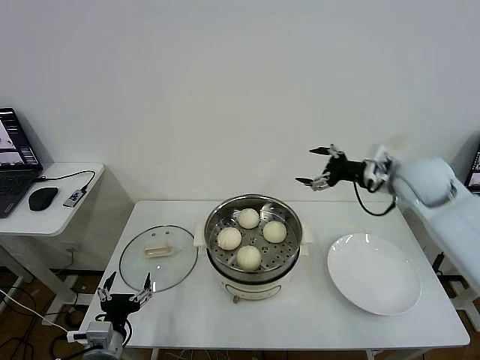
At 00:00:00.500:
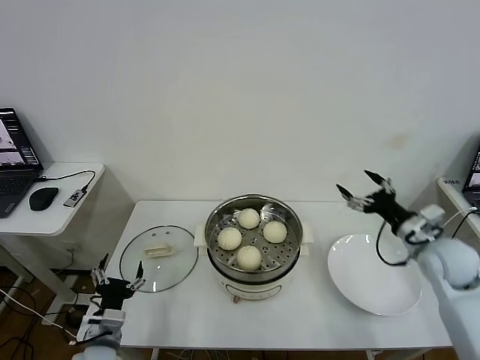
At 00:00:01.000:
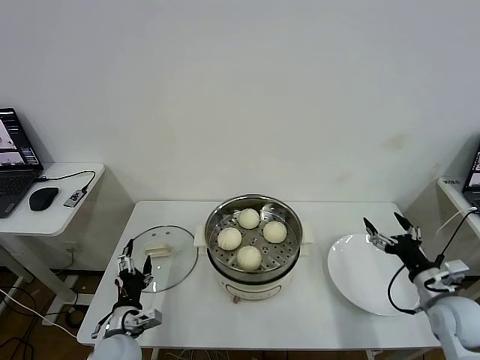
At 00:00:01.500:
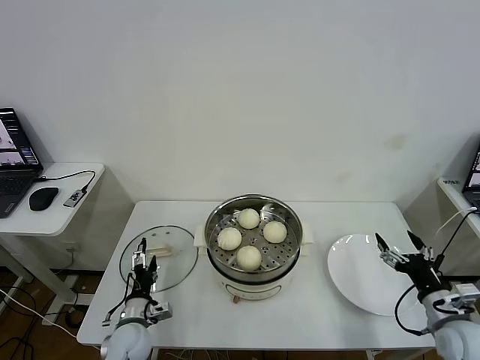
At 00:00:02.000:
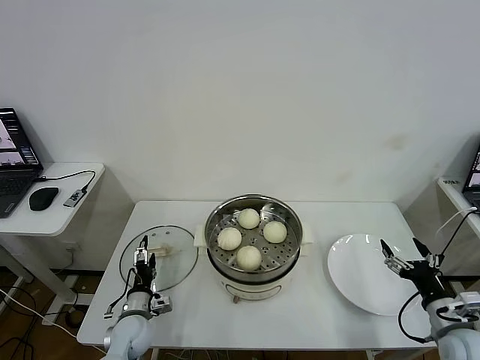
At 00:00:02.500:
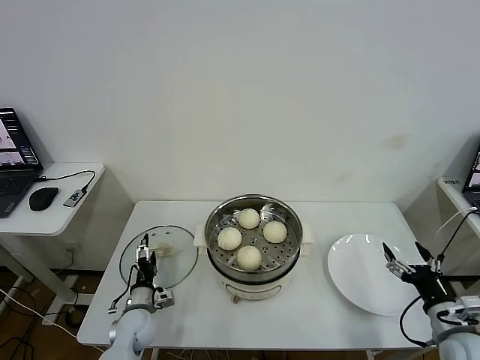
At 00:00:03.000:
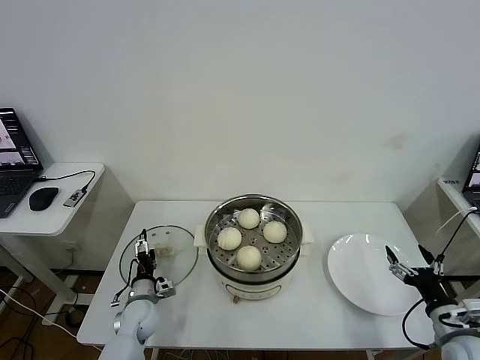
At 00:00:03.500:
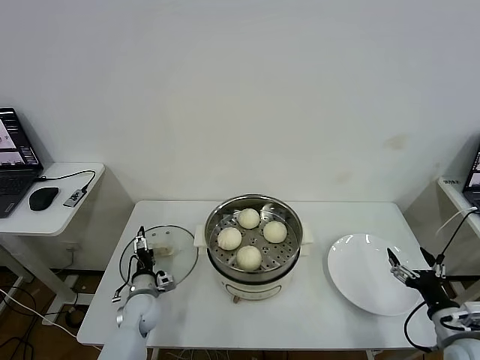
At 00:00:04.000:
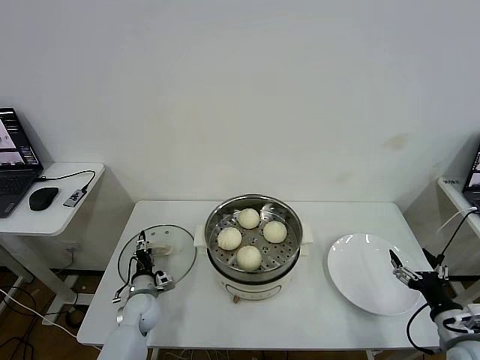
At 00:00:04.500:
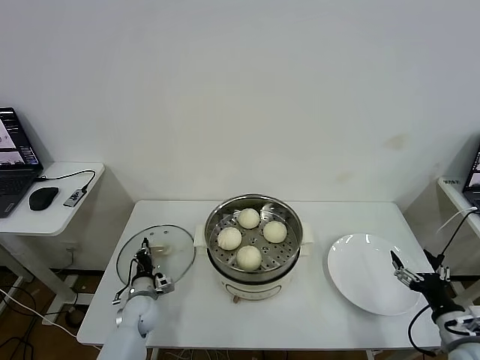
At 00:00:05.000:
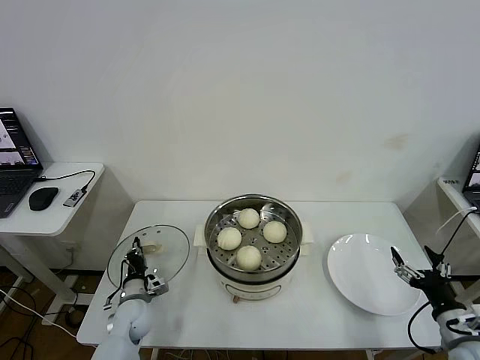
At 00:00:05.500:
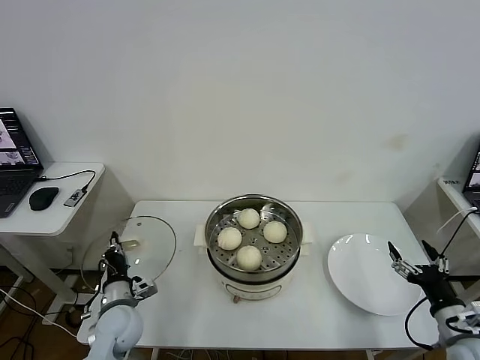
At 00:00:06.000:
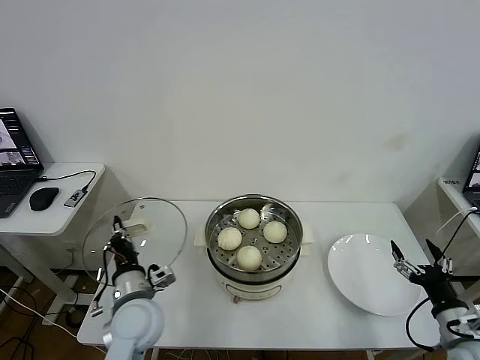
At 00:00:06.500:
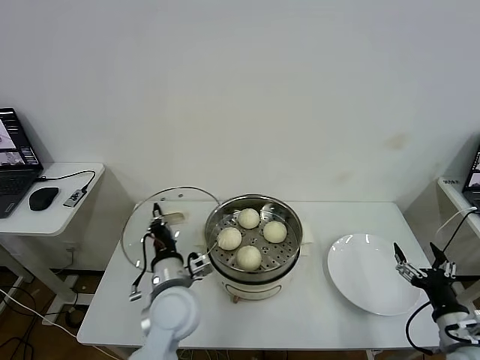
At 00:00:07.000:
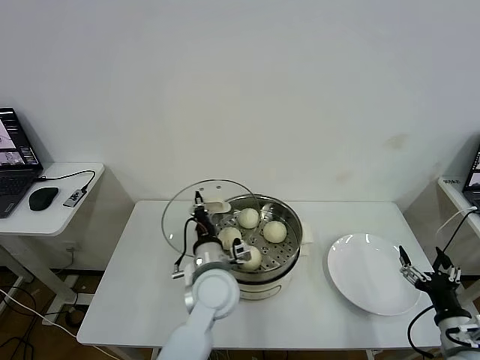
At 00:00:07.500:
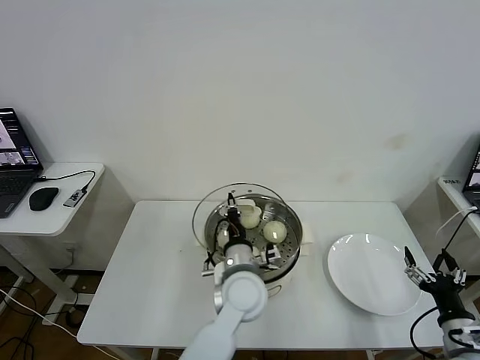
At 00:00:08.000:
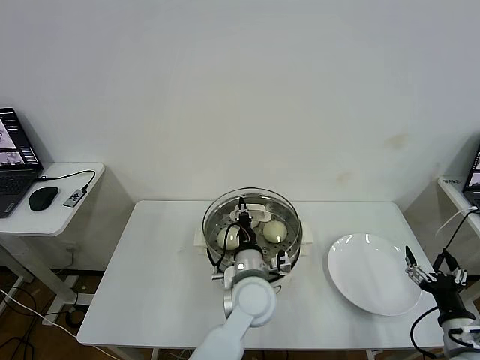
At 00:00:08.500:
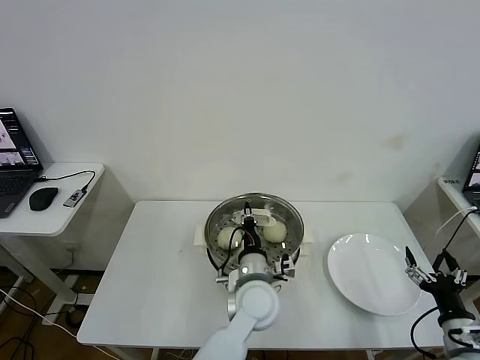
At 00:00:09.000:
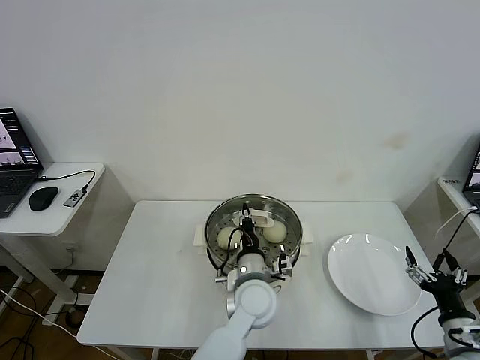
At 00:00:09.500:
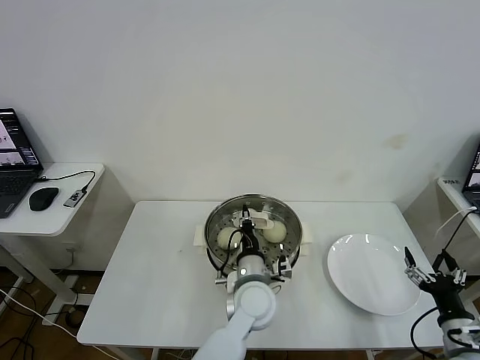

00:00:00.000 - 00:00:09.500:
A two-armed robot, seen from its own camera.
Task of the whole recording: take steamed baozi put them in steamer then cover it.
Step, 00:00:00.000 - 00:00:04.500: Grasp the pot lid with left gripper.
00:00:00.000 - 00:00:02.000: The right gripper goes approximately 35 cm backward and downward; the left gripper is displaced forward and downward by some 15 cm.
00:00:02.000 - 00:00:04.000: The left gripper shifts some 5 cm forward.
00:00:04.000 - 00:00:05.500: The left gripper goes approximately 10 cm upward and backward, and closes.
00:00:05.500 - 00:00:07.500: The left gripper travels to the right and upward by about 30 cm.
00:00:07.500 - 00:00:09.500: The grippers stay close to where they were, moving slightly.

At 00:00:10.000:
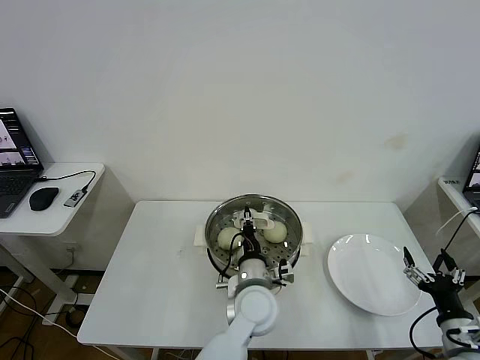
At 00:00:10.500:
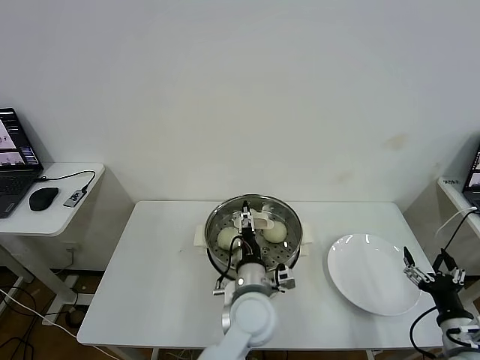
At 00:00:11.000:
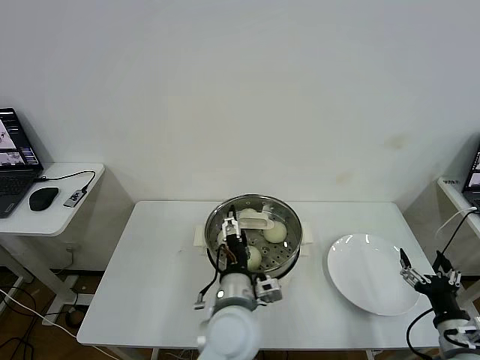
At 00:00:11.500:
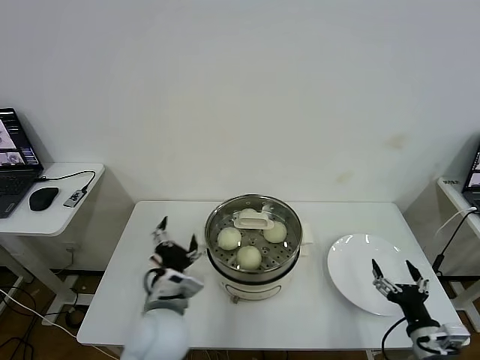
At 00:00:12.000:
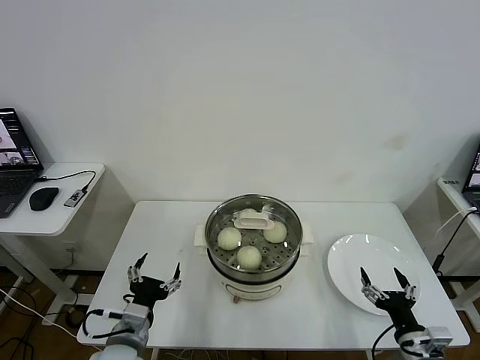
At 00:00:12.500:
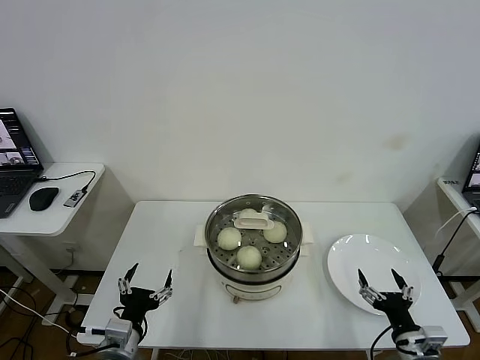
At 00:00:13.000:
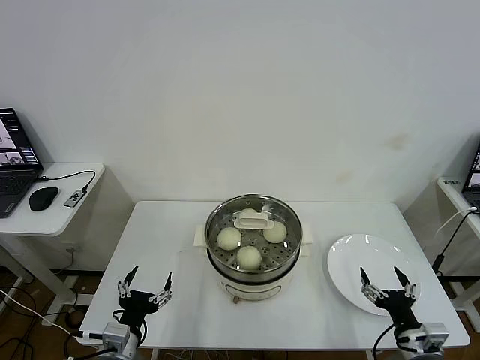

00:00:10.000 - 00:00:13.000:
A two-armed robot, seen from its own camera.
Task of the whole recording: take steamed baozi put them in steamer then cover it.
00:00:10.000 - 00:00:11.500: The left gripper shifts approximately 20 cm to the left, backward and upward, and opens up.
00:00:11.500 - 00:00:13.000: The left gripper is displaced to the left, downward and backward by approximately 20 cm.

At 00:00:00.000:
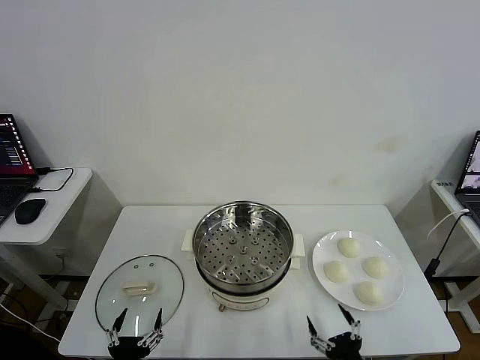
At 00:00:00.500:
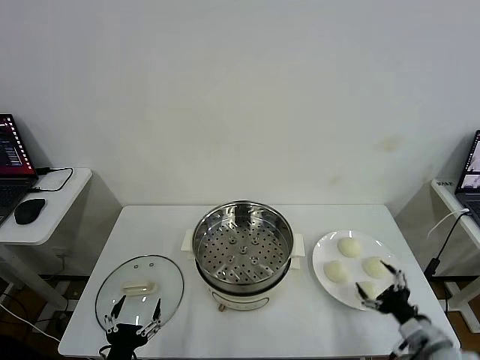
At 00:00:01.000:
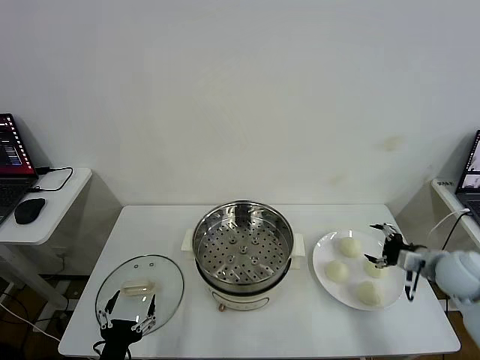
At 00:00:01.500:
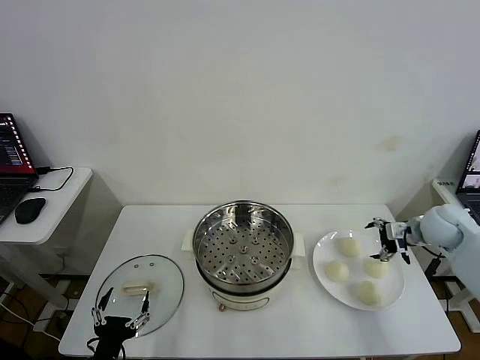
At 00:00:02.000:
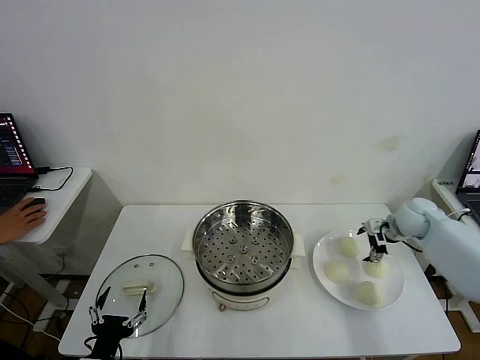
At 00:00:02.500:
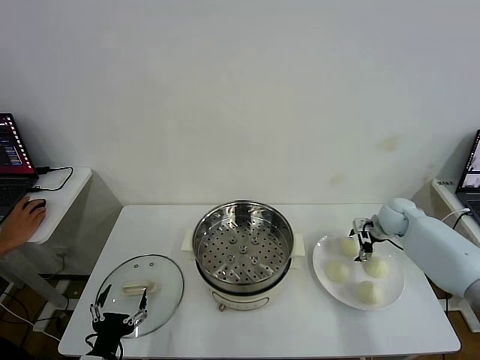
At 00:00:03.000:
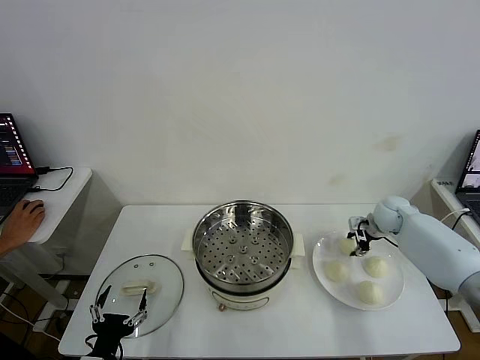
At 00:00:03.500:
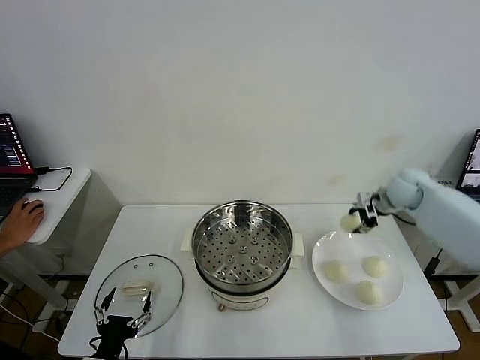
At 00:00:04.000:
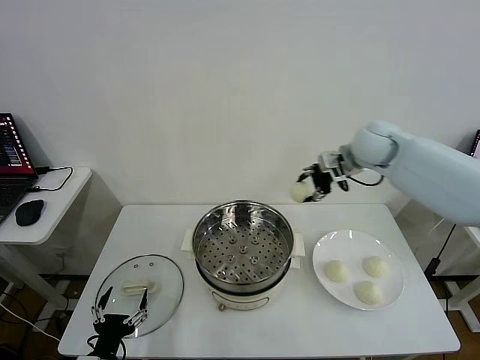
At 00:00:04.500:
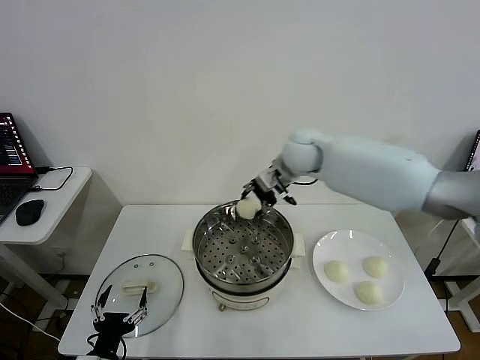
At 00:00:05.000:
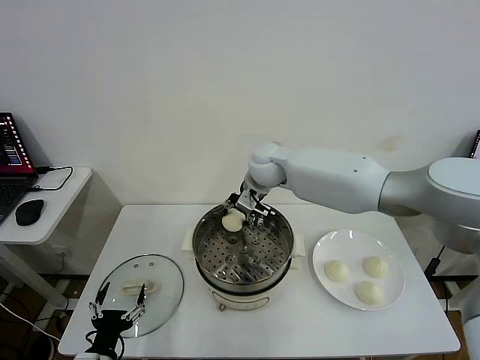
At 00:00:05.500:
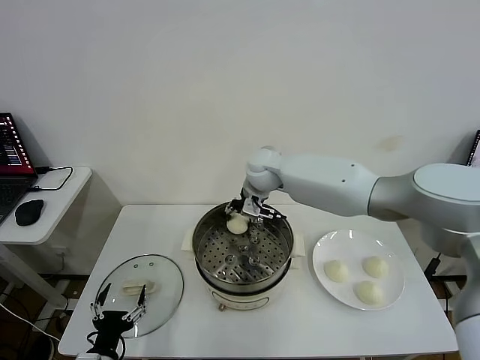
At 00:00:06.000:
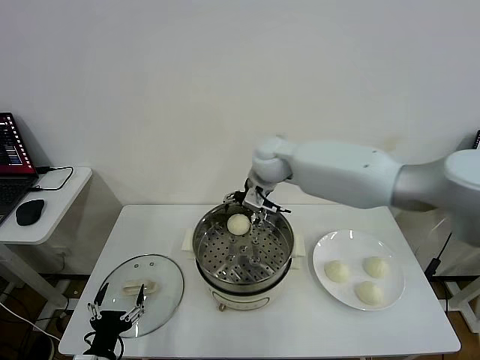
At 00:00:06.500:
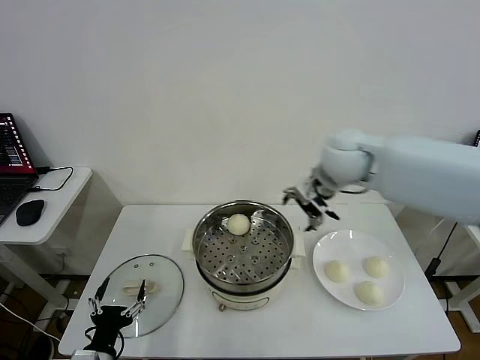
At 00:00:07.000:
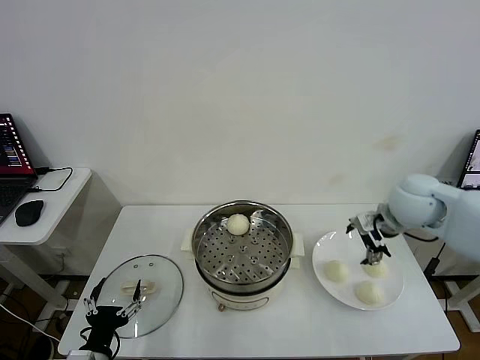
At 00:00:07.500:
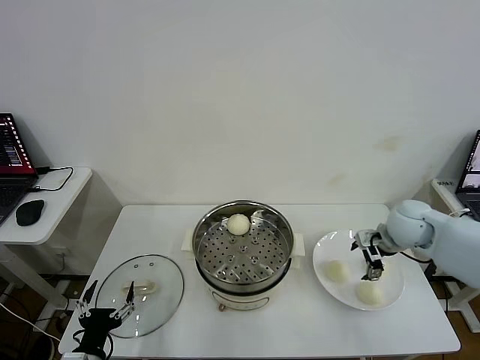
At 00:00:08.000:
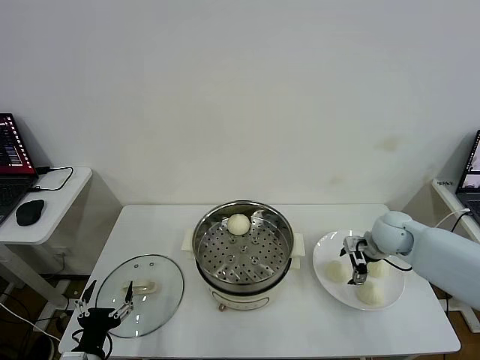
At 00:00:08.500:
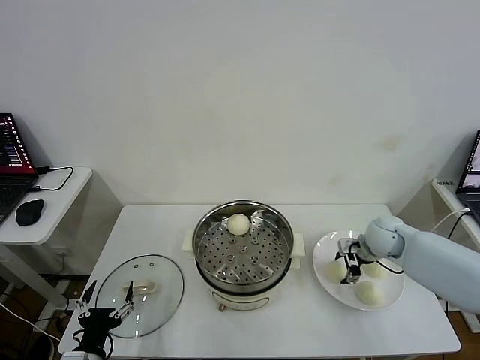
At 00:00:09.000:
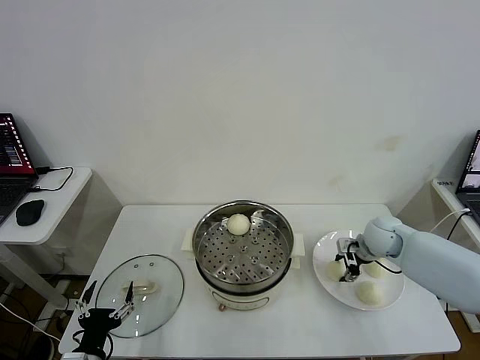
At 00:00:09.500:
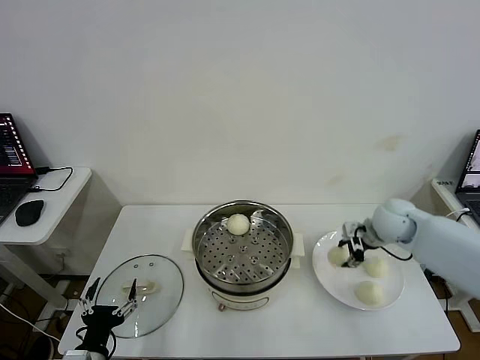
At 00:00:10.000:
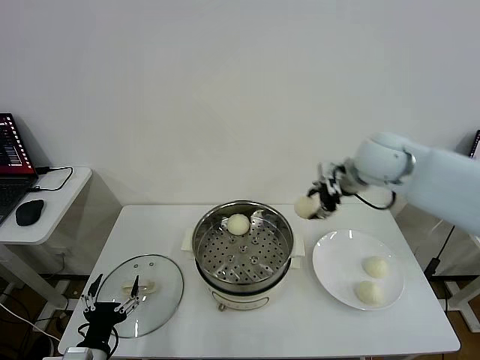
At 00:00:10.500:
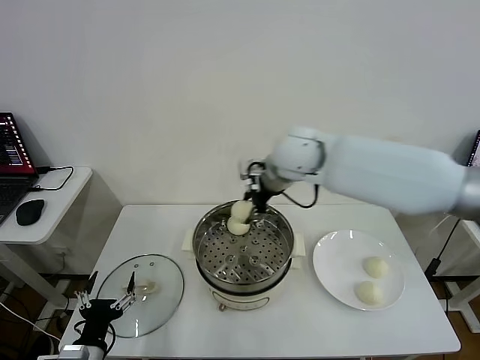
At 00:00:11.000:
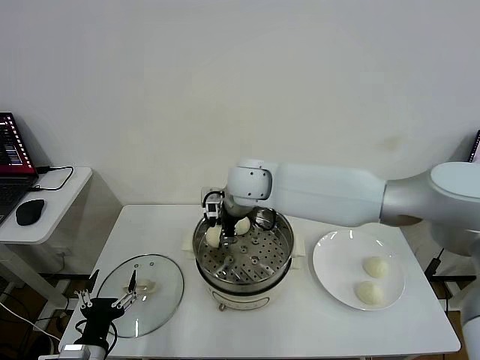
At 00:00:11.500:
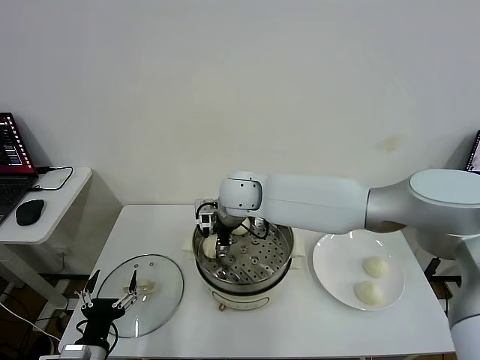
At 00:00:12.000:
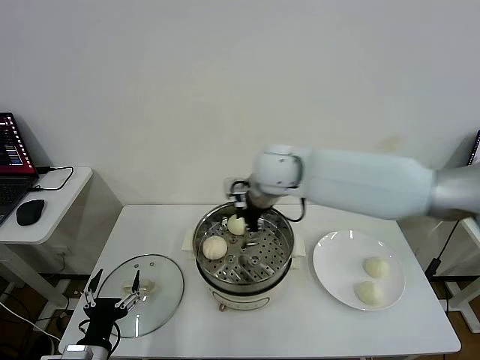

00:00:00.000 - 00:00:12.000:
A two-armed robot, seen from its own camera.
Task of the whole recording: take steamed baozi put them in steamer then cover it.
Step, 00:00:00.000 - 00:00:02.500: Grasp the baozi in the plate with right gripper.
Step, 00:00:03.000 - 00:00:05.500: Place the baozi on the steamer with right gripper.
Step, 00:00:06.000 - 00:00:08.500: Grasp the baozi in the plate with right gripper.
Step, 00:00:09.000 - 00:00:11.500: Place the baozi on the steamer with right gripper.
00:00:02.000 - 00:00:04.000: The right gripper goes approximately 30 cm to the left and upward, and closes.
00:00:04.000 - 00:00:06.000: The right gripper moves to the left, some 15 cm, and opens.
00:00:06.000 - 00:00:08.000: The right gripper goes about 30 cm to the right and downward.
00:00:08.000 - 00:00:10.000: The right gripper moves upward and to the left, approximately 25 cm, and closes up.
00:00:10.000 - 00:00:12.000: The right gripper is displaced to the left by approximately 10 cm, and opens up.
